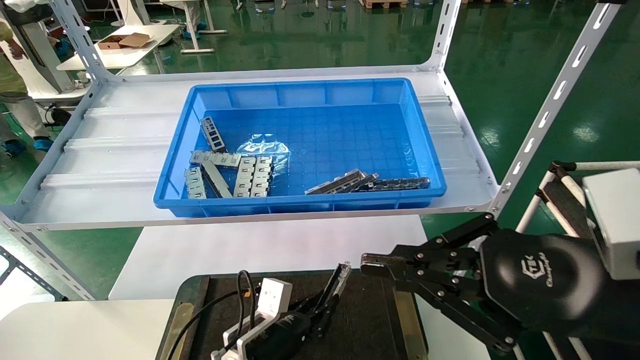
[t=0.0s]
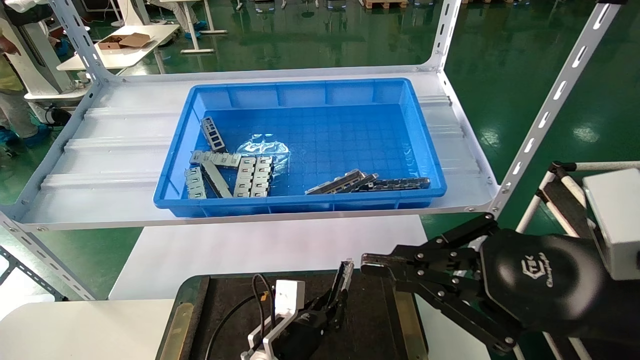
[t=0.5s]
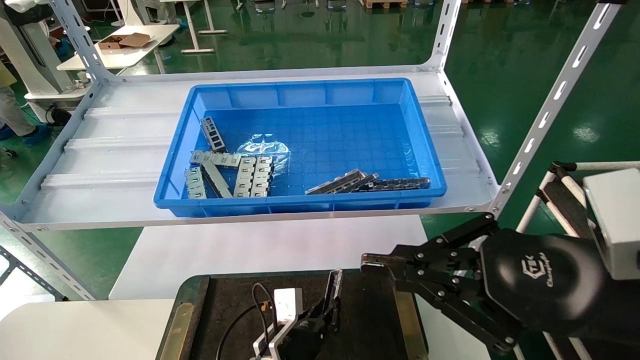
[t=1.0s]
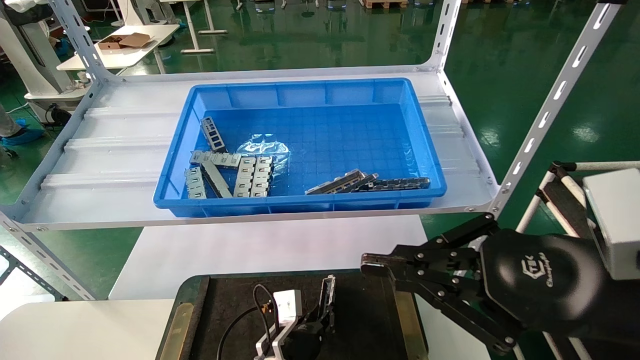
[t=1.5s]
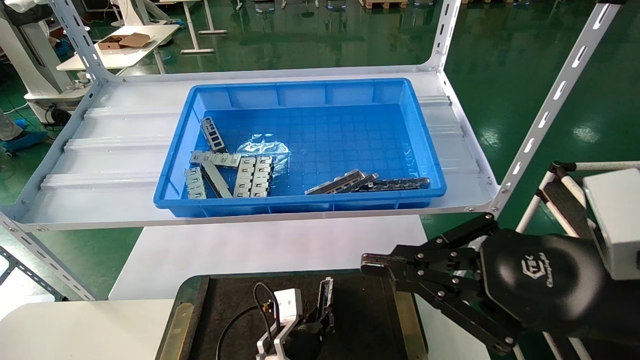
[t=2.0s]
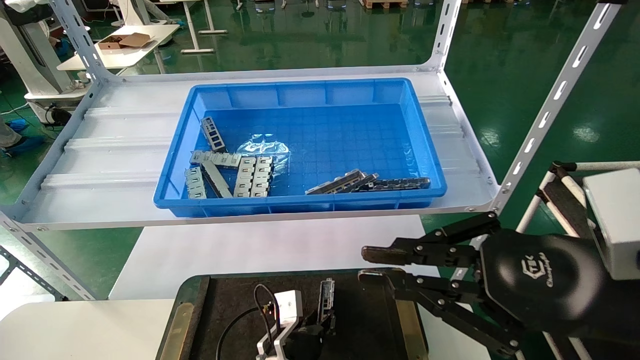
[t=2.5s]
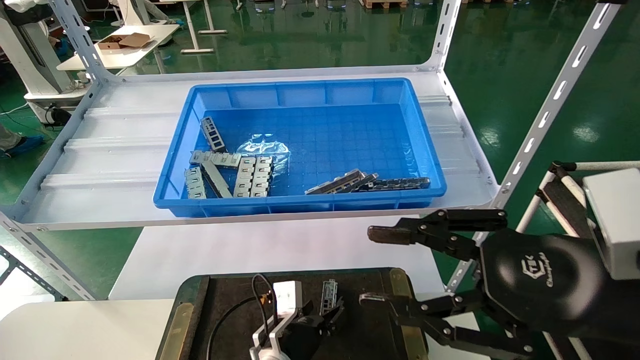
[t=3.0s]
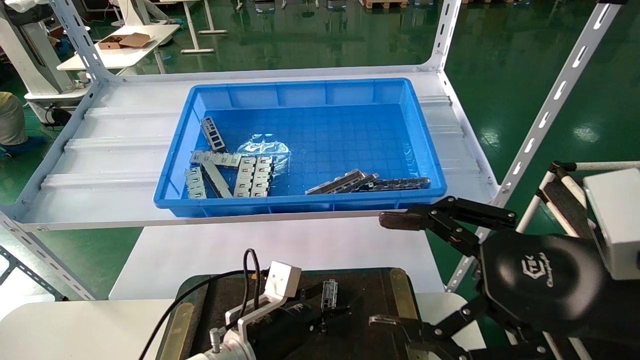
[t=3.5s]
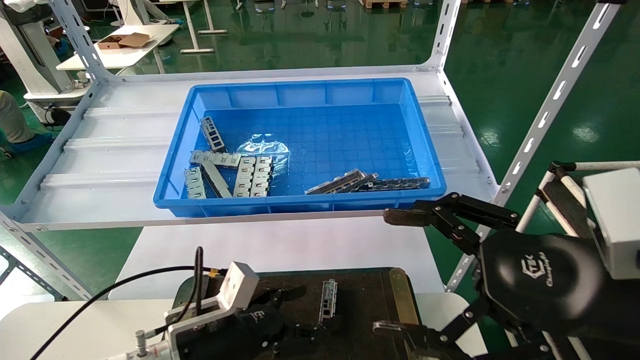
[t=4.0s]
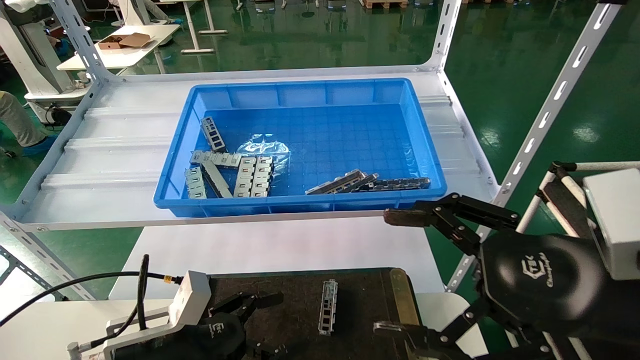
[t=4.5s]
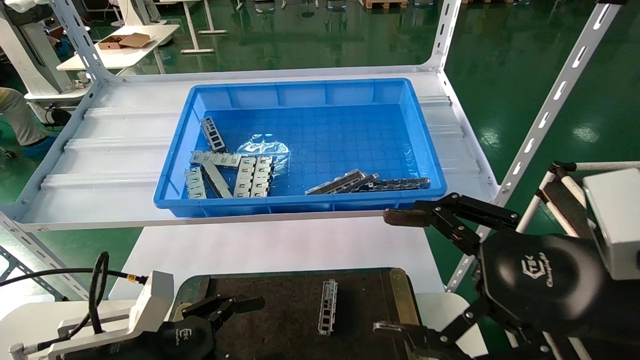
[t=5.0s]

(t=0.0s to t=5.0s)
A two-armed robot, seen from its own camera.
Task of the whole recording: Grasp the part with one hand and place it on the black container.
Step, t=0.0s - t=2.5s: Place the front USB bracket into the box.
t=0.0s - t=2.5s: The left gripper heads to the right, covering some 5 cm.
t=2.5s - t=5.0s: The left gripper heads to the left, upward and backward, covering roughly 25 cm, and opens. Meanwhile the right gripper opens up.
